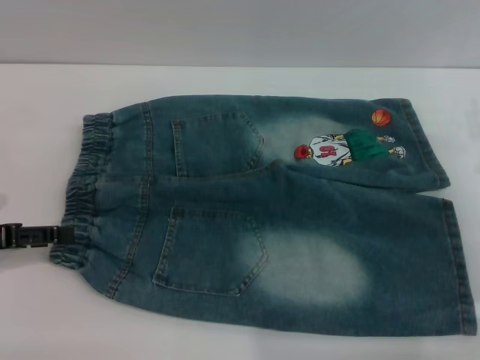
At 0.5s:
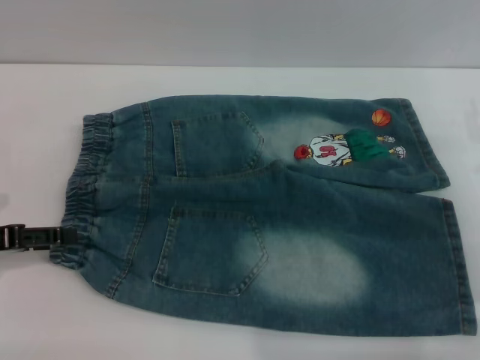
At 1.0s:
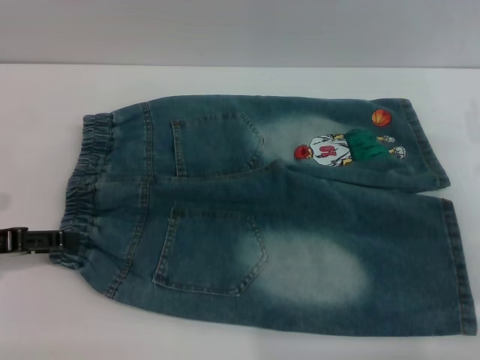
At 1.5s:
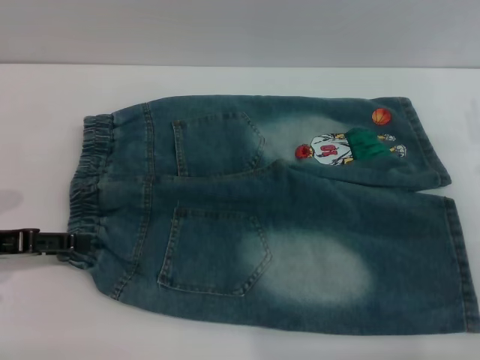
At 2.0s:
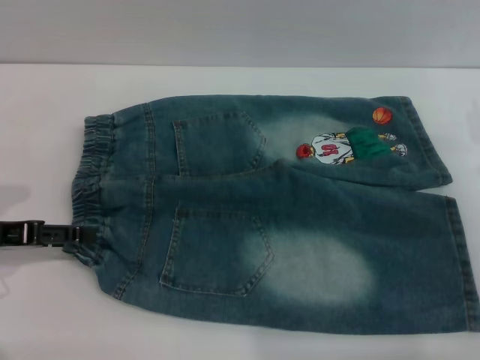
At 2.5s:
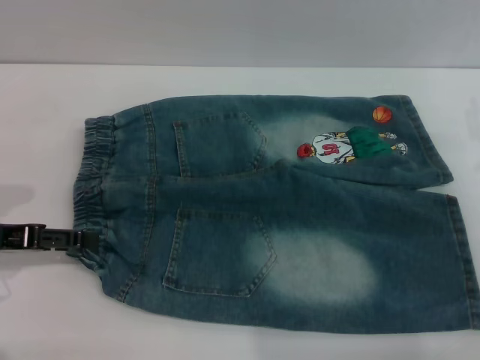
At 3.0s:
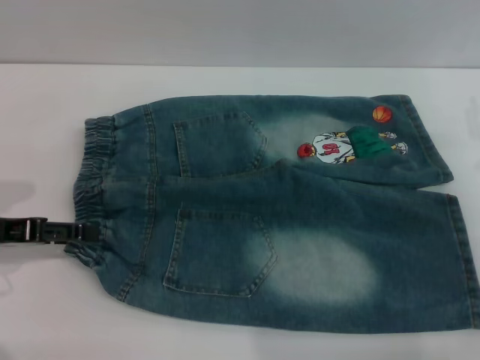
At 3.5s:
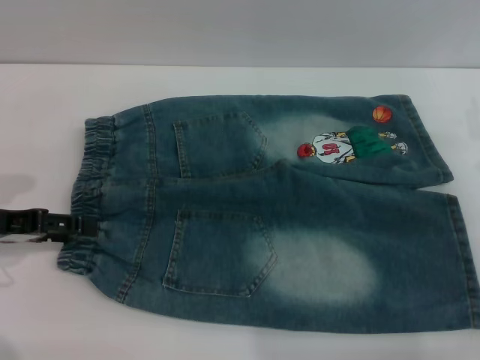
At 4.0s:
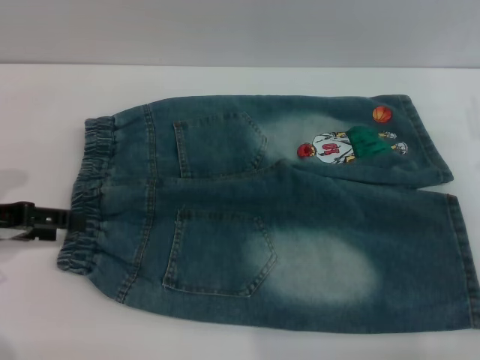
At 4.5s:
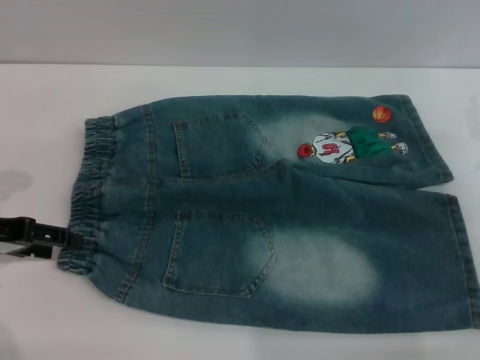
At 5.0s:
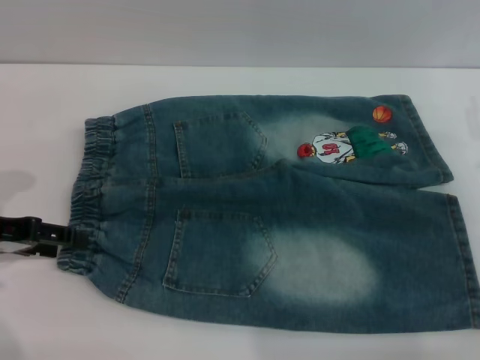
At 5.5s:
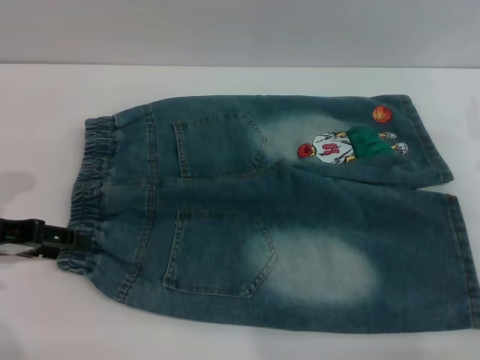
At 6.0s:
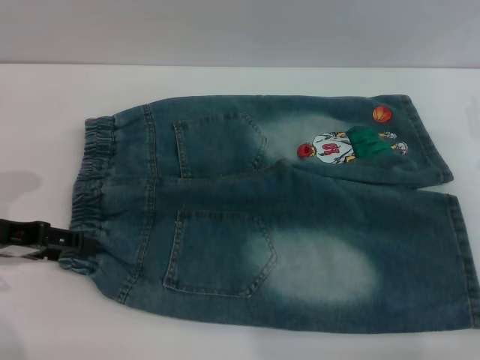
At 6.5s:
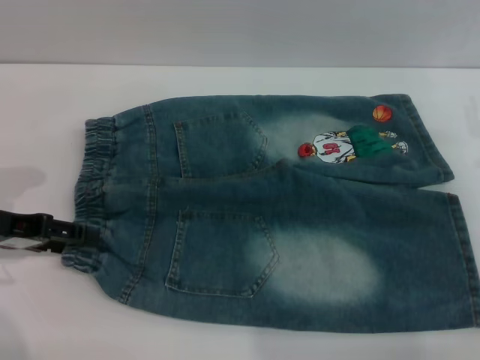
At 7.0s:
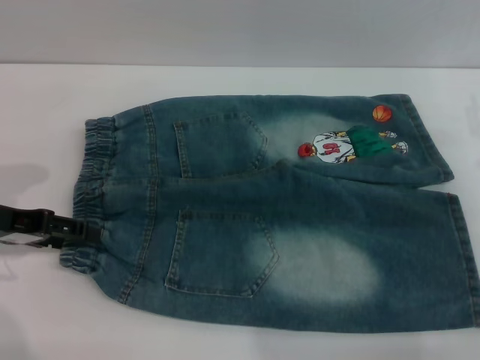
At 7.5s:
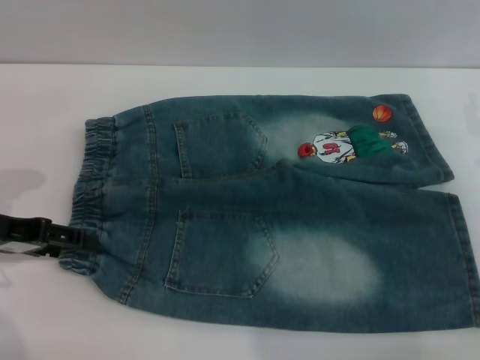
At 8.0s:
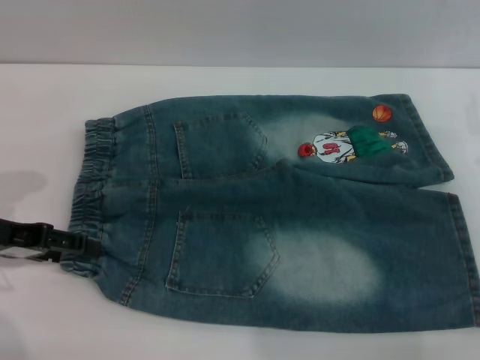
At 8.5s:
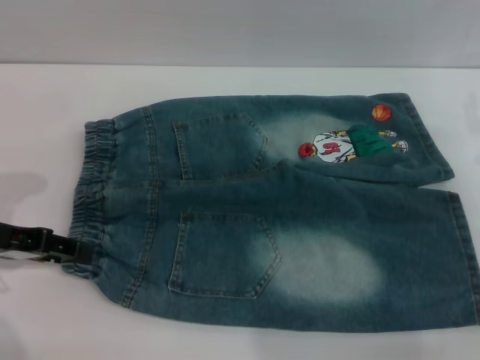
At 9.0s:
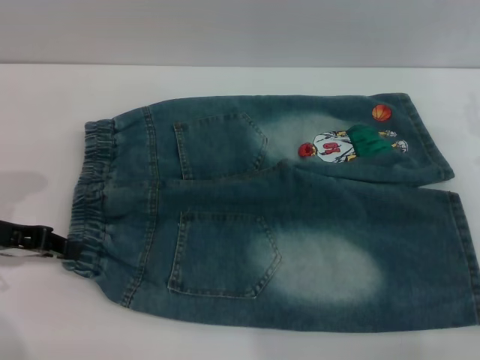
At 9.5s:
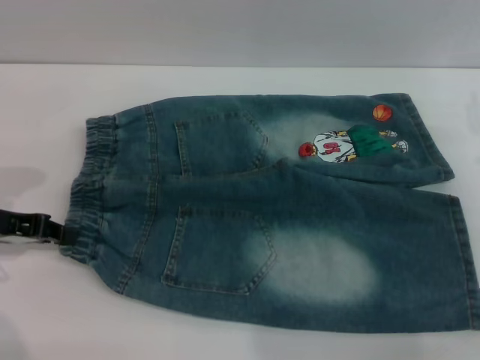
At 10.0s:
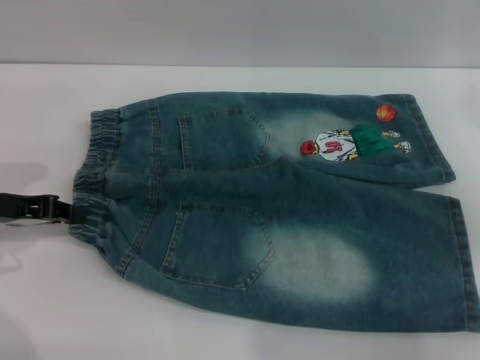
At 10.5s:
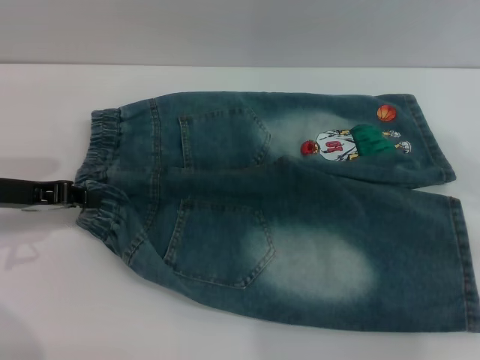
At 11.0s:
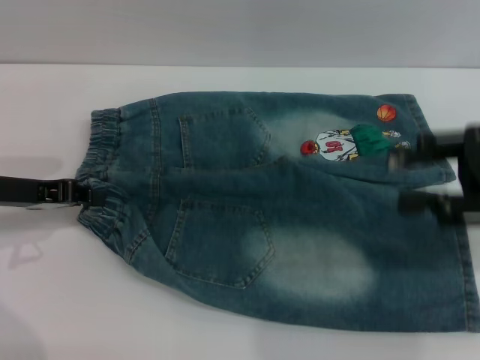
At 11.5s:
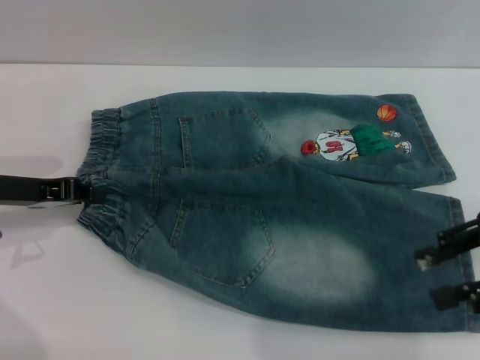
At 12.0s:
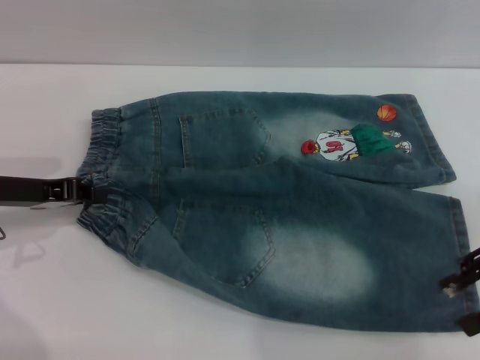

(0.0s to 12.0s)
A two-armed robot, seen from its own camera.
0.0s - 6.0s: There are only small adjustments of the grippers.
6.0s - 8.0s: Neither gripper changes place.
8.0s - 10.0s: The left gripper closes.
10.0s - 12.0s: The right gripper moves backward and upward, about 10 cm.

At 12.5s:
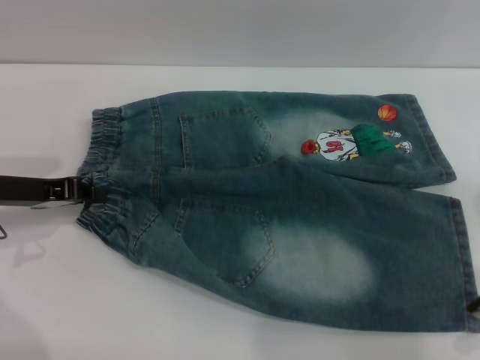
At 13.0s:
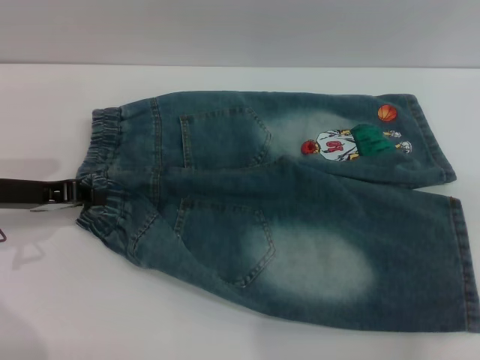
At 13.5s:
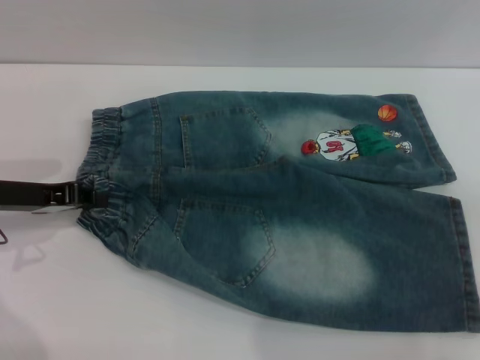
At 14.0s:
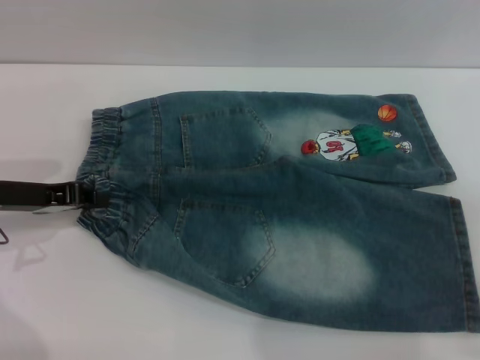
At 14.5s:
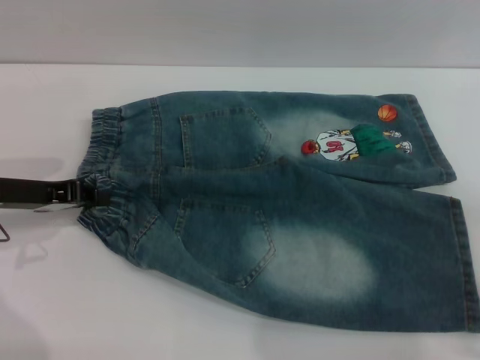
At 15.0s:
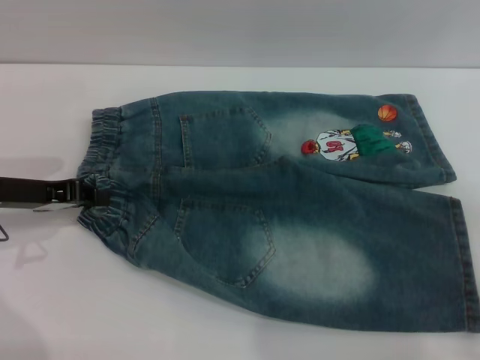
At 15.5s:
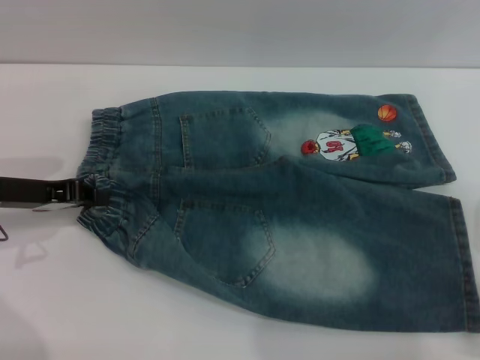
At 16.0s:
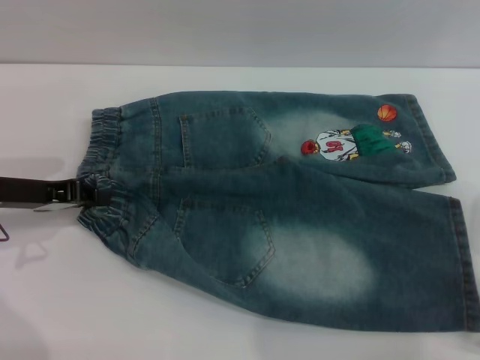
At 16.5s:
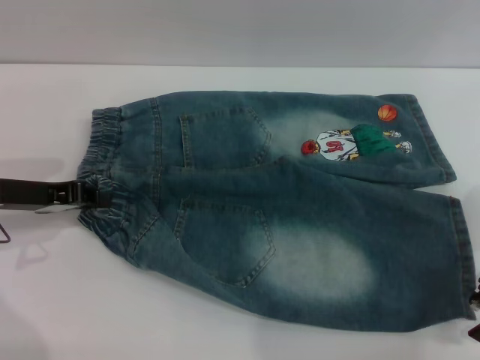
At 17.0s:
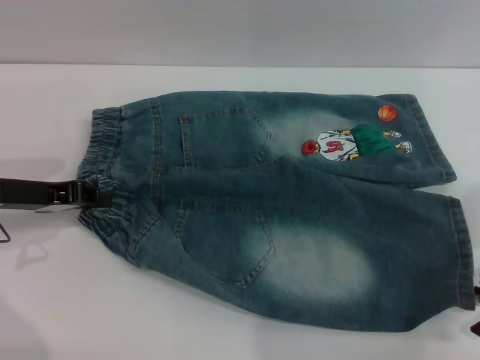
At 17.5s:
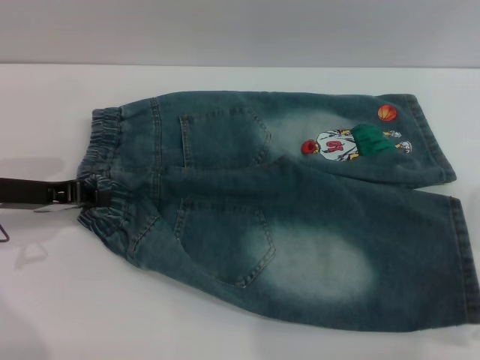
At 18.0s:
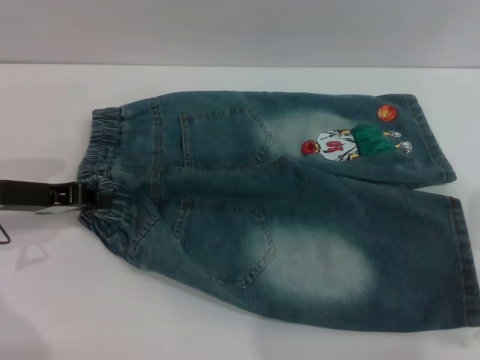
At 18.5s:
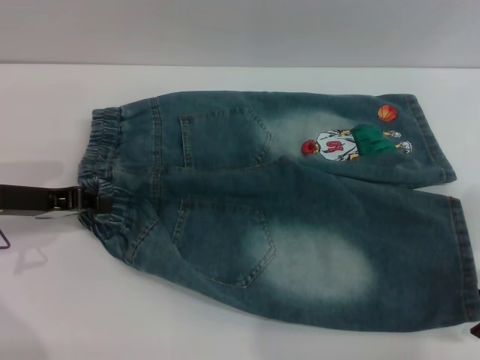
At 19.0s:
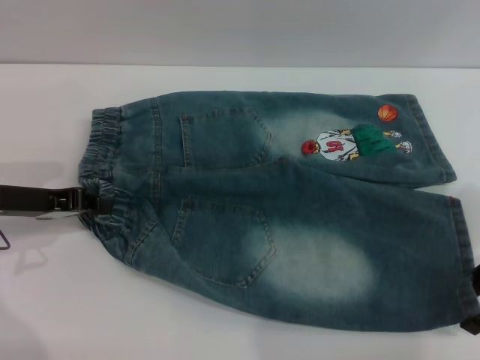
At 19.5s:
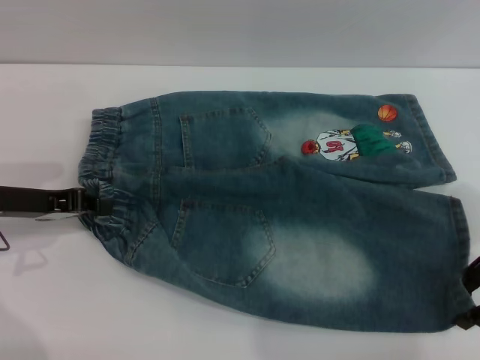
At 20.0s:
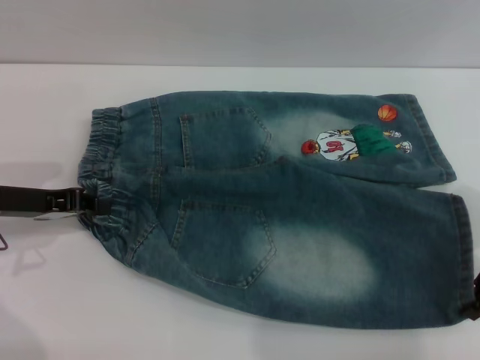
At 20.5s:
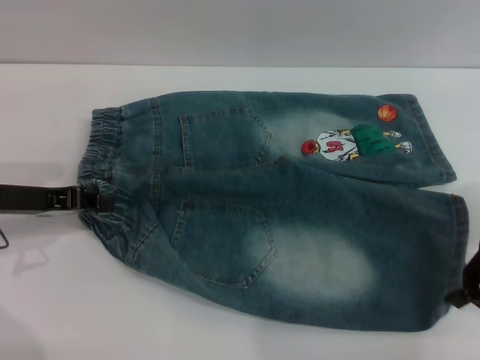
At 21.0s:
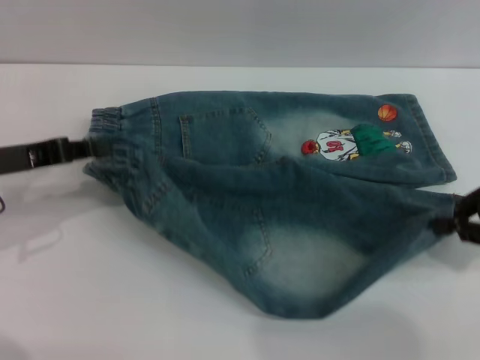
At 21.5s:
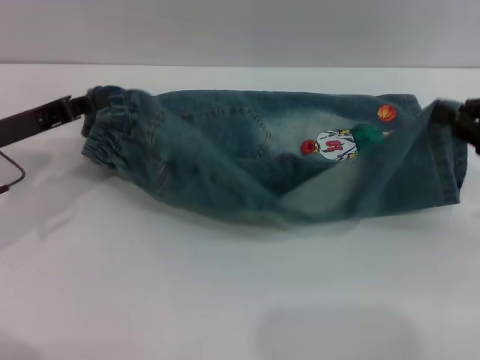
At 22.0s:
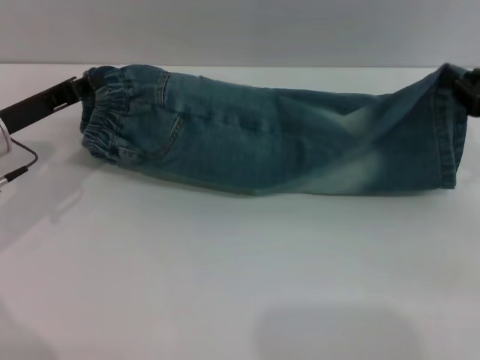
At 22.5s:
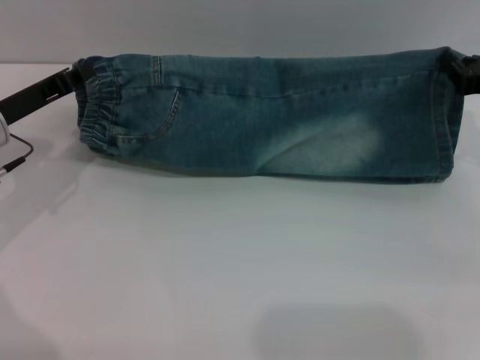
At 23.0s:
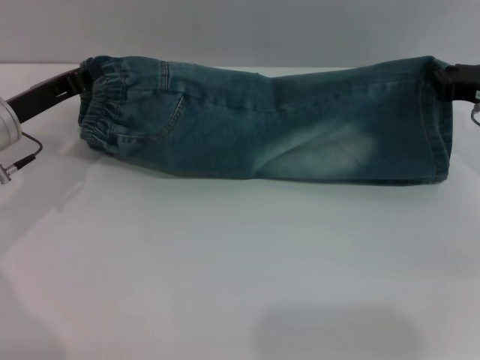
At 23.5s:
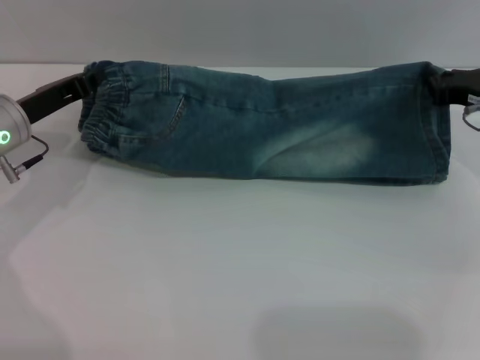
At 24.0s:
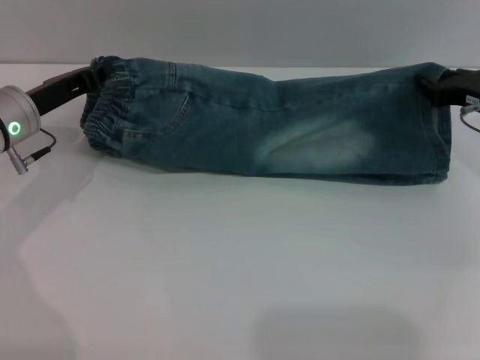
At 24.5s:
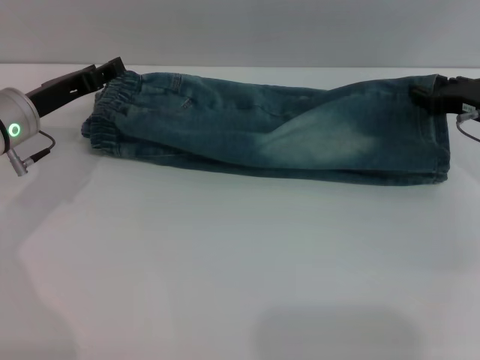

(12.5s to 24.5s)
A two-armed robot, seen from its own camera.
12.5s - 16.5s: The grippers stay close to where they were, moving slightly.
16.5s - 18.5s: Both grippers stay put.
18.5s - 20.5s: The right gripper closes its fingers.
20.5s - 22.5s: The right gripper moves forward, roughly 10 cm.
22.5s - 24.5s: The right gripper opens.

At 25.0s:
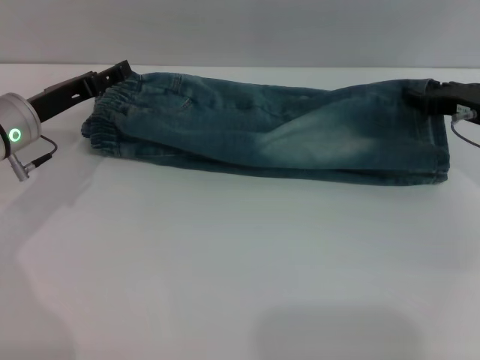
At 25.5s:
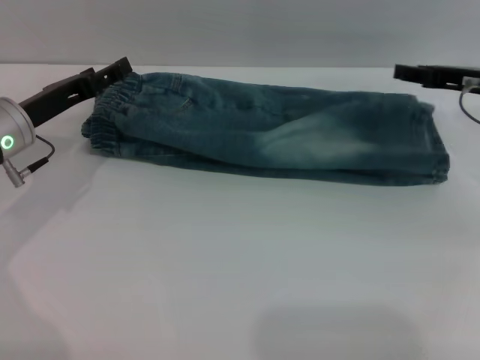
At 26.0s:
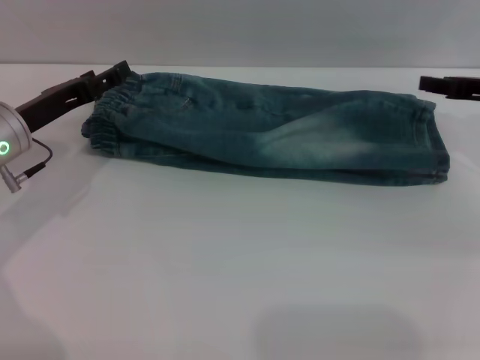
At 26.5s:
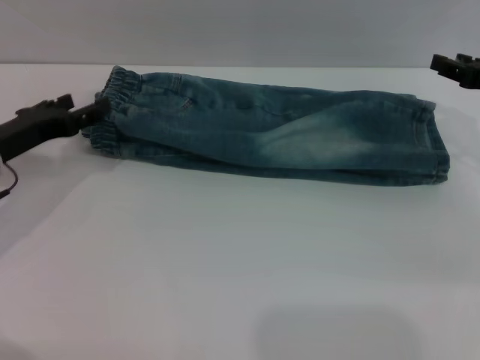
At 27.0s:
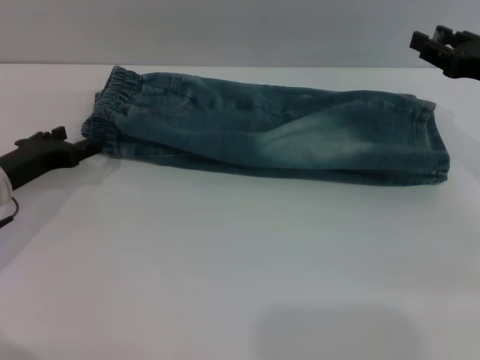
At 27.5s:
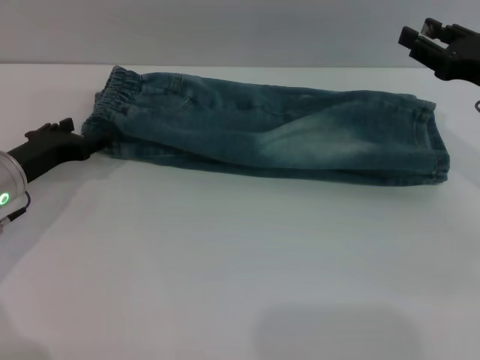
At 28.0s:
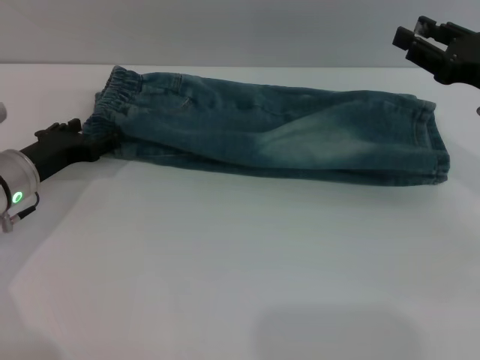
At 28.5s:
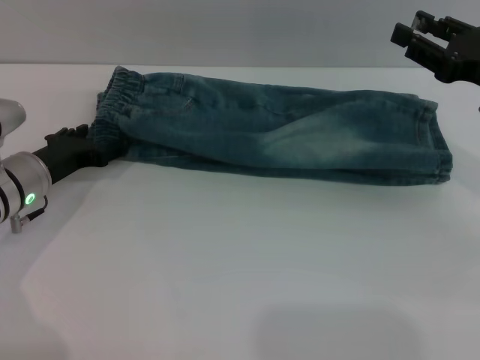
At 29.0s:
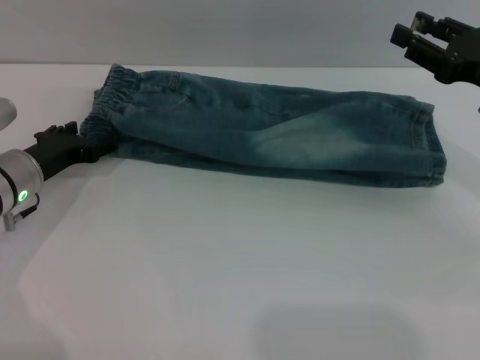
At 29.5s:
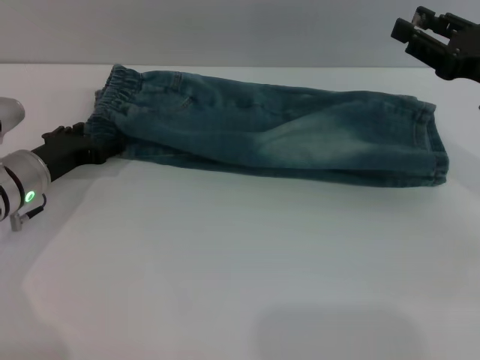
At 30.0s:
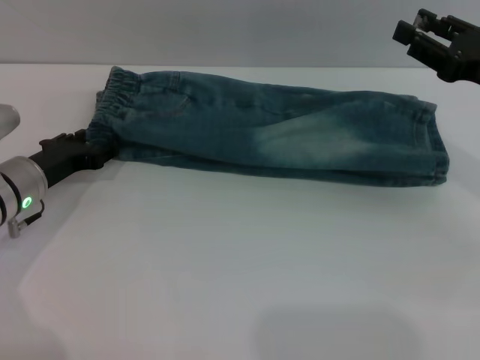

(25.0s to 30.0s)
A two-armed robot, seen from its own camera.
25.0s - 27.5s: The left gripper moves some 5 cm. Meanwhile the right gripper shifts by roughly 5 cm.
27.5s - 30.0s: The grippers make only small movements.
